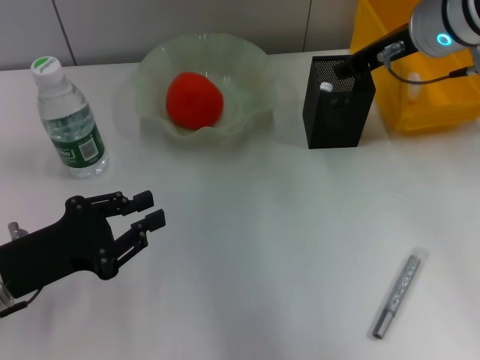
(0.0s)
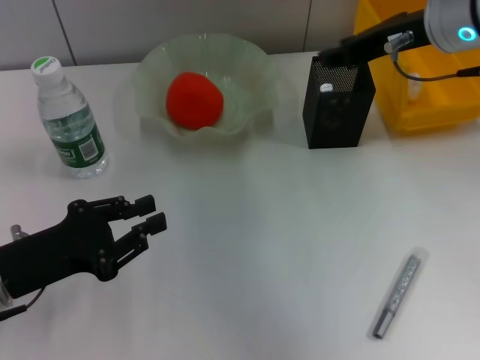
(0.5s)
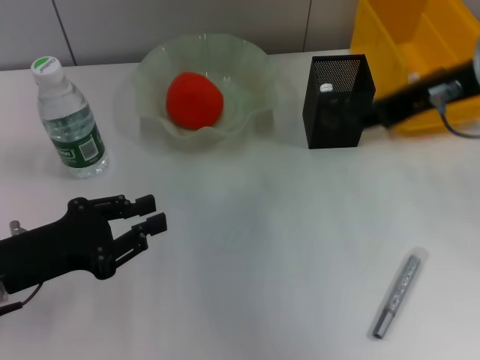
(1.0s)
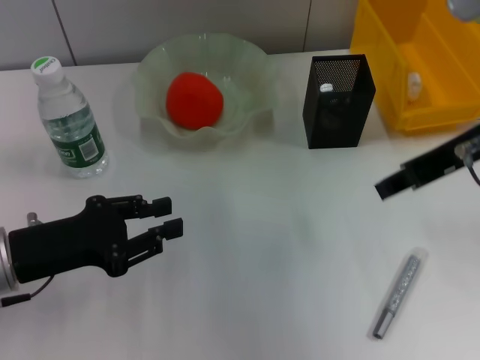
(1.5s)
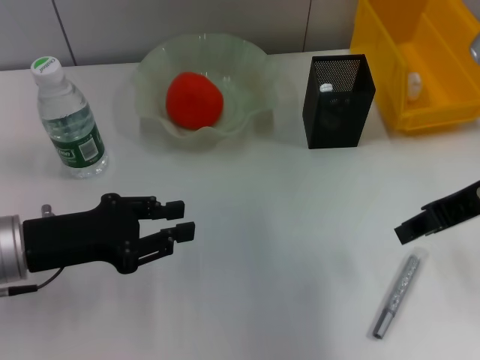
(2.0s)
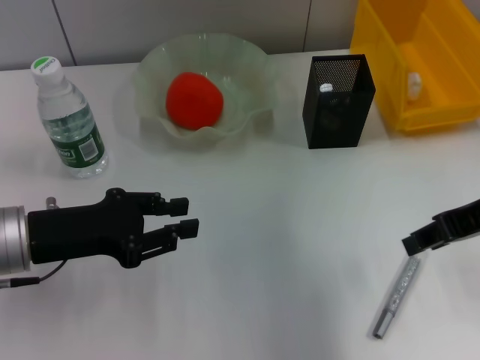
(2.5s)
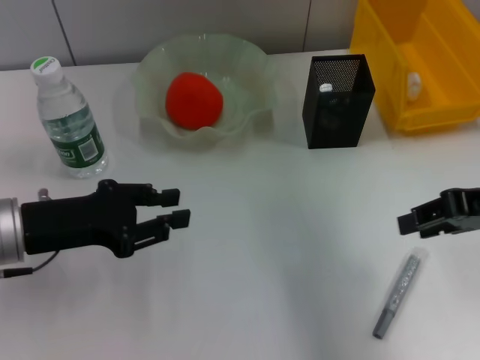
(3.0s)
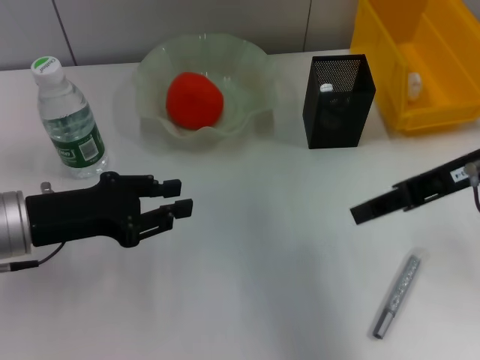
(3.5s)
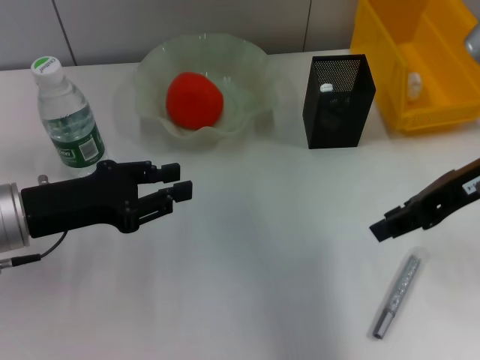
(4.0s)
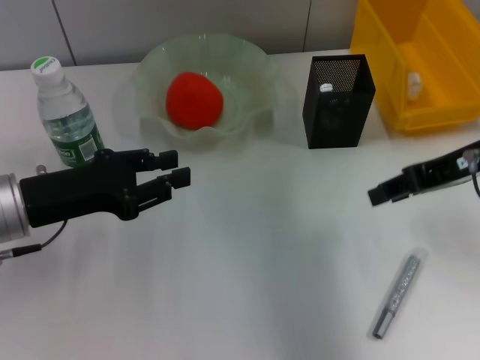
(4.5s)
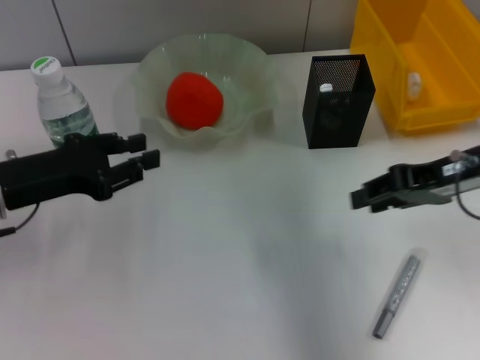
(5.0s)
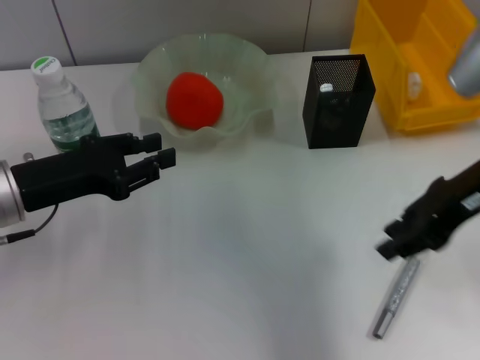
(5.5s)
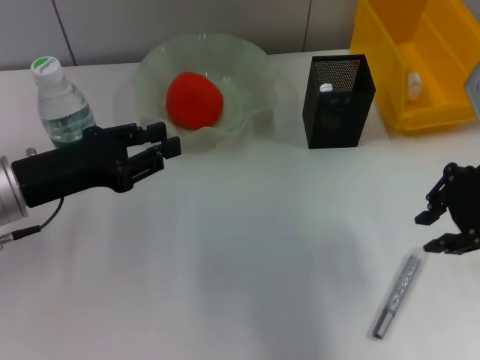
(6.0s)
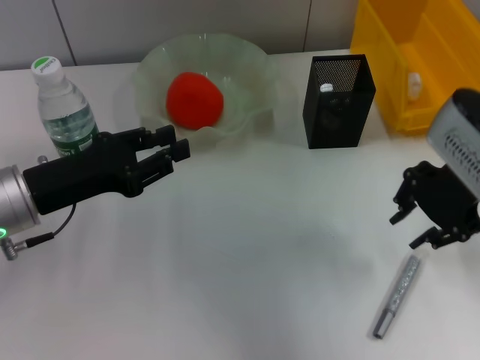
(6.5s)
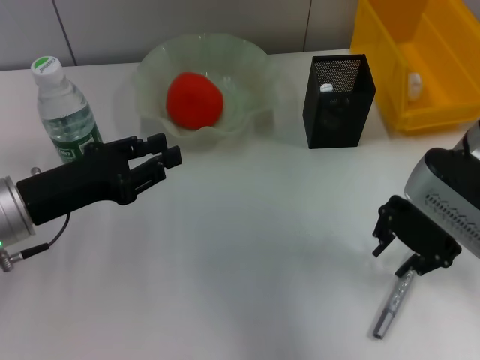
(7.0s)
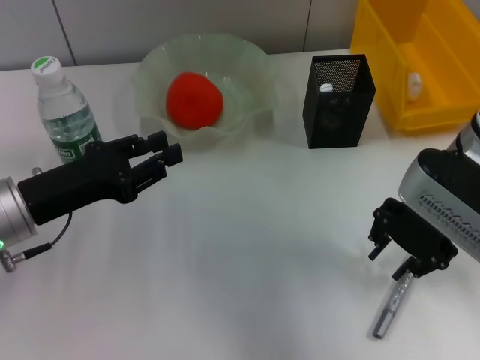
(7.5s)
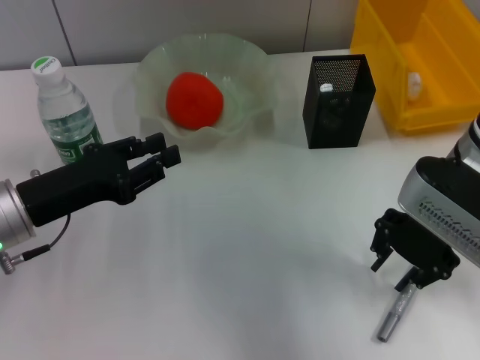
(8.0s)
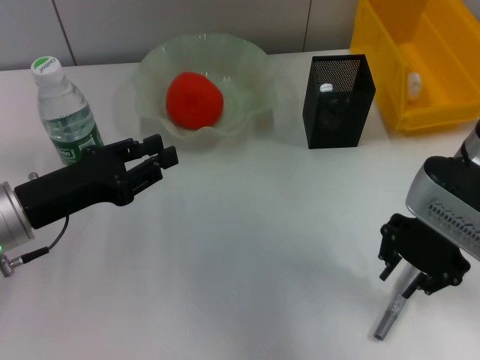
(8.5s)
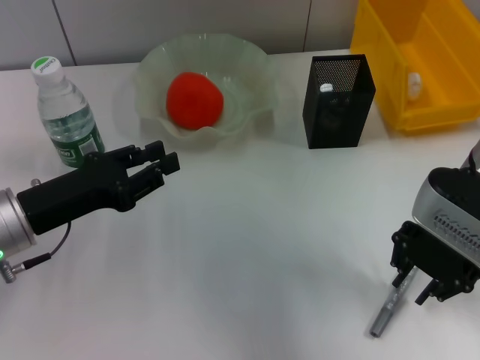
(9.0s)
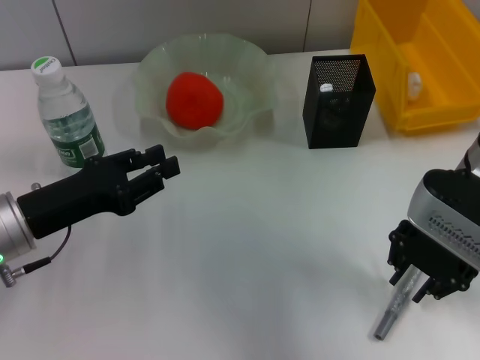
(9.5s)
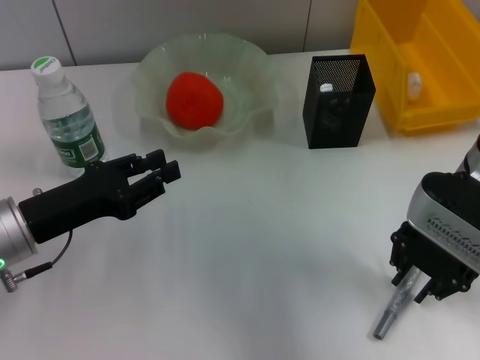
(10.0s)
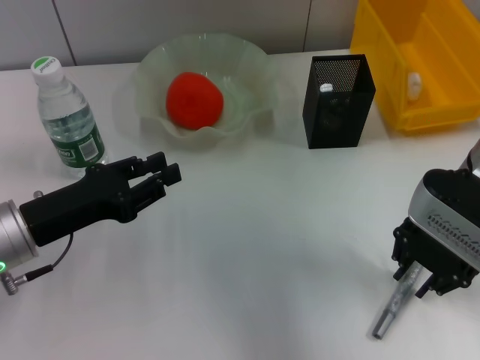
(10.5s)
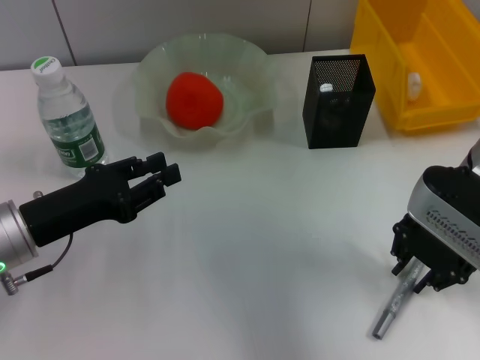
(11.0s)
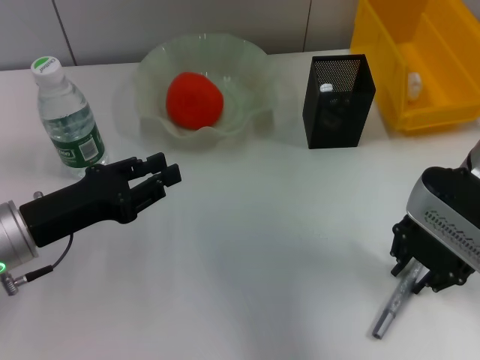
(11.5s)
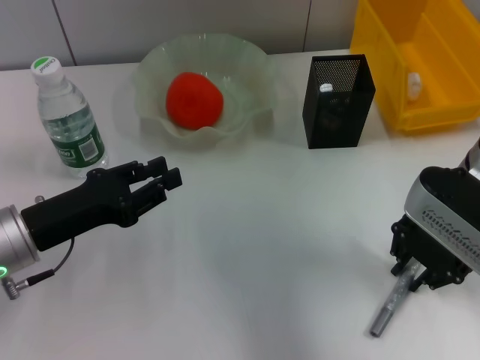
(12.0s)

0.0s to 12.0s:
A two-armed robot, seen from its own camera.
0.0s to 2.0s: The right gripper travels backward by some 15 cm.
6.0s to 8.0s: The right gripper is displaced downward and to the left by about 10 cm.
8.0s to 10.0s: The grippers stay close to where they were, moving slightly.
10.0s to 12.0s: Both grippers stay about where they are.

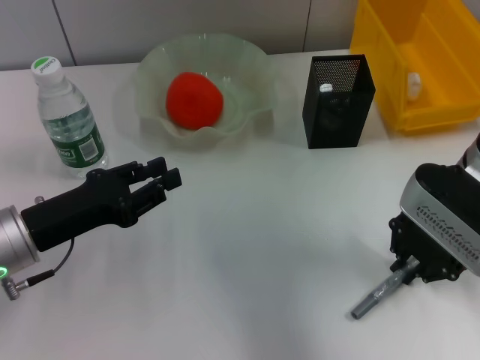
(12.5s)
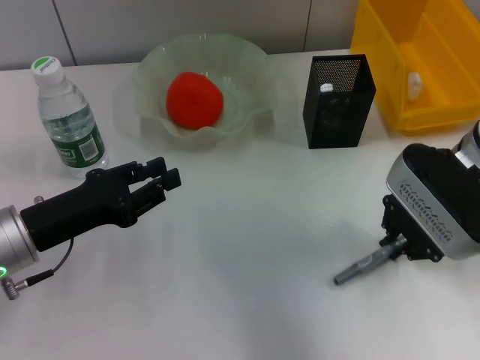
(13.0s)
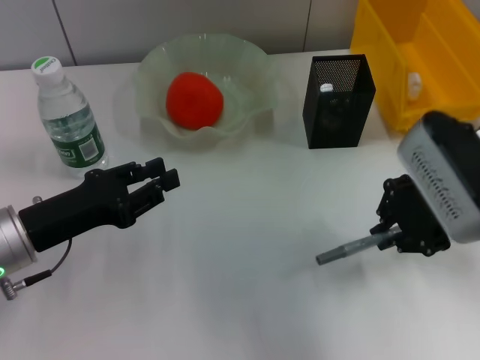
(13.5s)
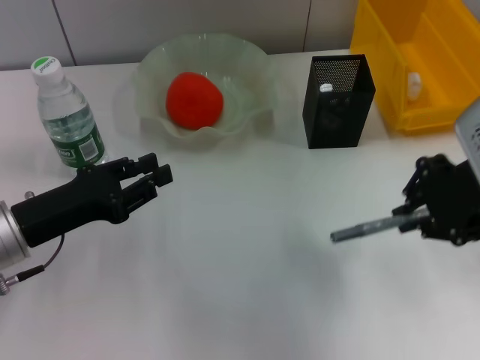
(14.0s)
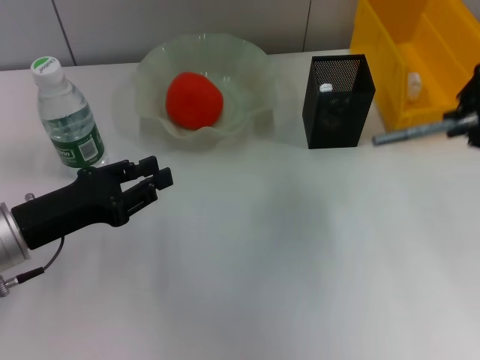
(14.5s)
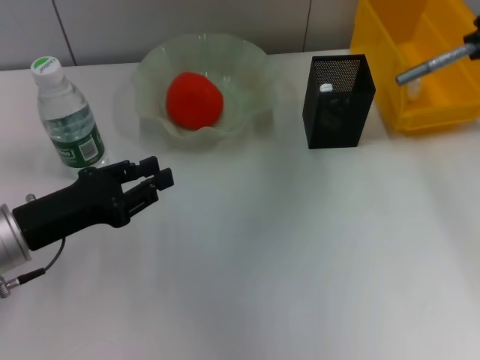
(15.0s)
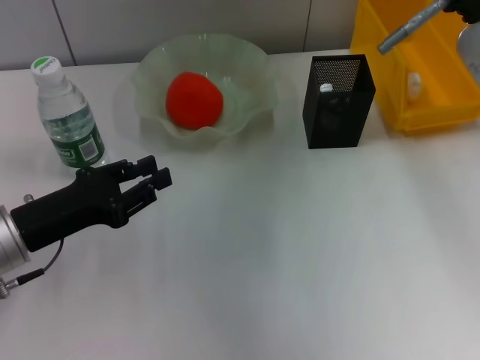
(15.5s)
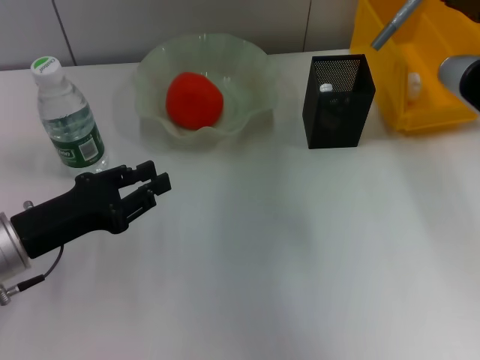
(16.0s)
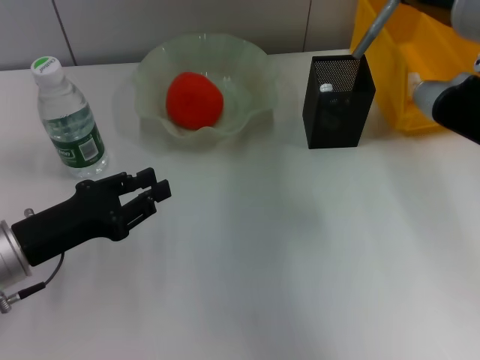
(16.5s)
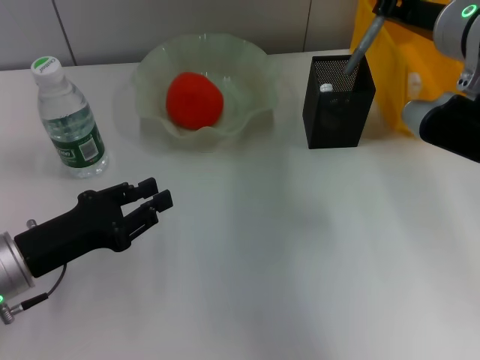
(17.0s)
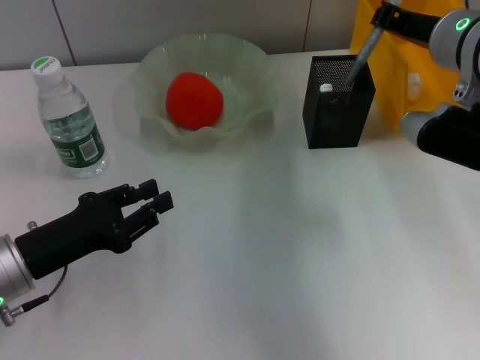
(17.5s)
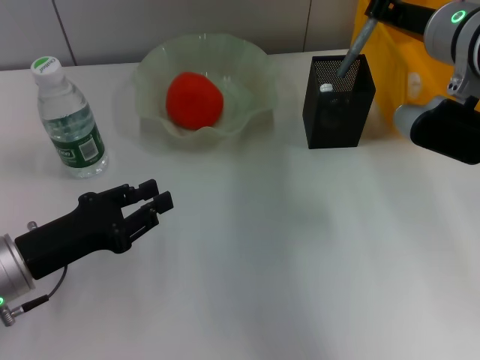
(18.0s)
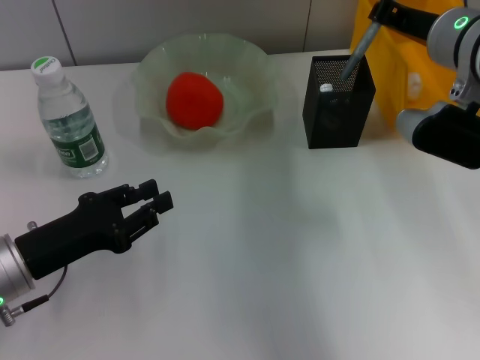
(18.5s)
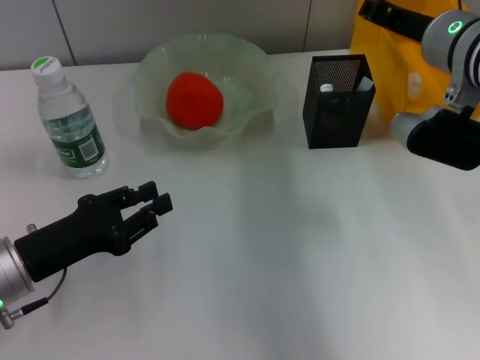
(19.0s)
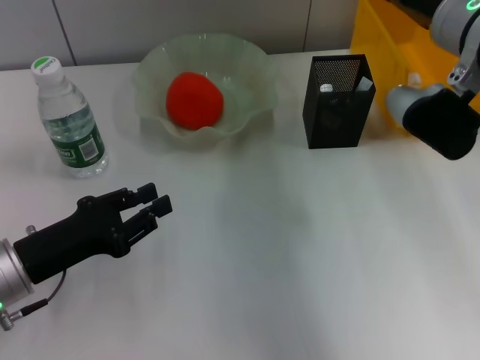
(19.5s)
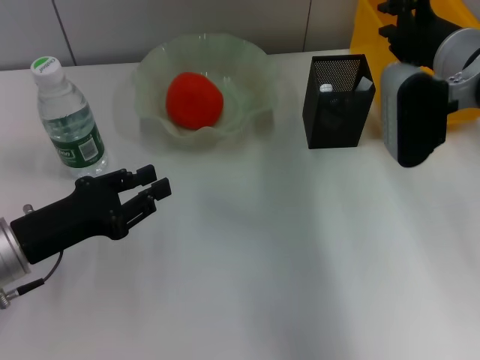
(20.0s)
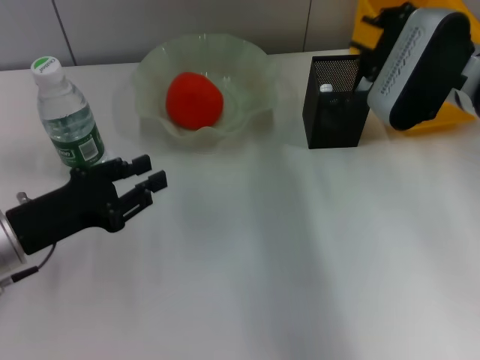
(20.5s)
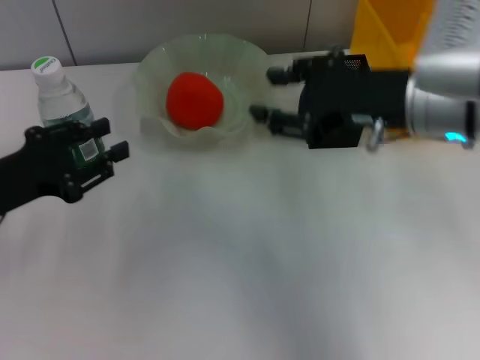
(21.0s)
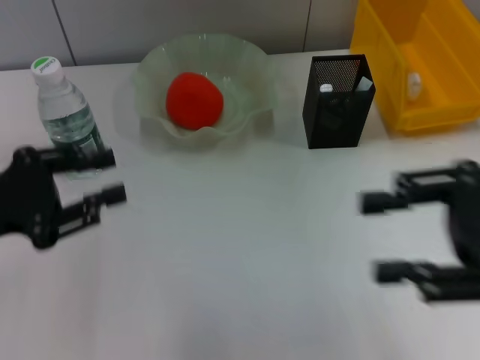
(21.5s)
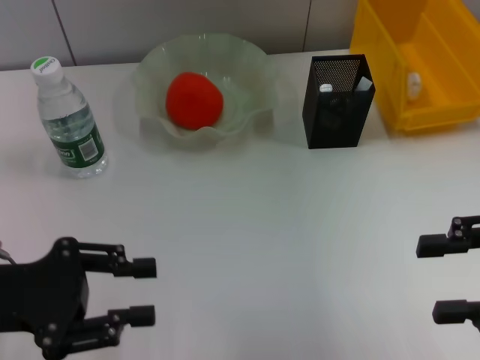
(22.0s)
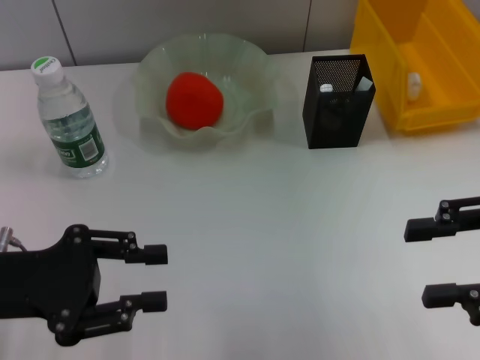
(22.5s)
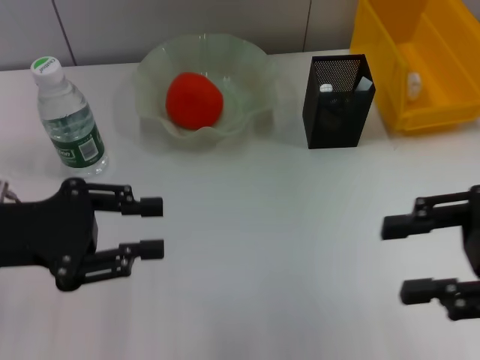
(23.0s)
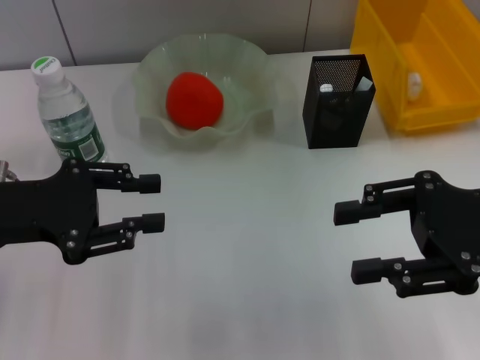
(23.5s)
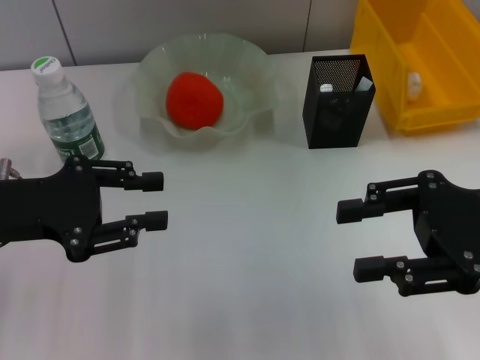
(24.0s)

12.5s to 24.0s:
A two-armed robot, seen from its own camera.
Step, 12.5s to 19.0s: Place the gray glue into the pen holder with the right hand.
12.5s to 14.5s: The right gripper travels upward by about 15 cm.
14.5s to 16.5s: The right gripper is displaced forward and downward by some 10 cm.
16.5s to 18.5s: The grippers move only a little.
20.0s to 22.0s: The left gripper travels upward by some 5 cm. Meanwhile the right gripper moves backward and to the right, approximately 20 cm, and opens its fingers.
22.0s to 24.0s: Both grippers travel together forward, about 5 cm.
